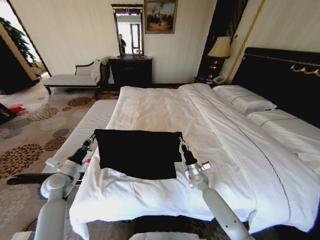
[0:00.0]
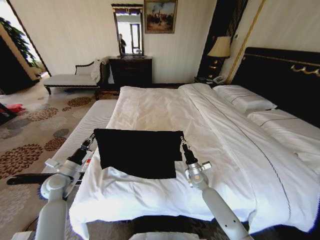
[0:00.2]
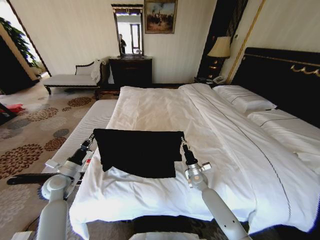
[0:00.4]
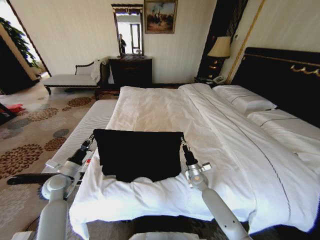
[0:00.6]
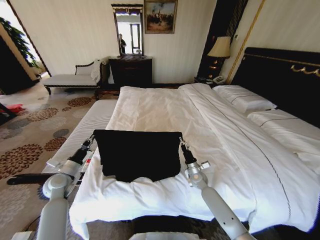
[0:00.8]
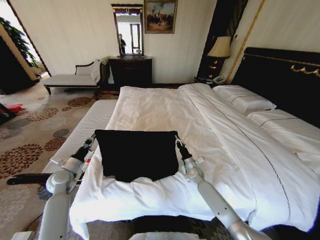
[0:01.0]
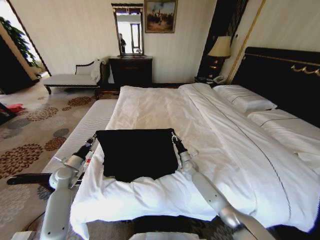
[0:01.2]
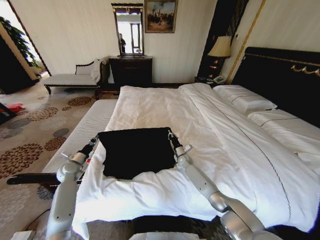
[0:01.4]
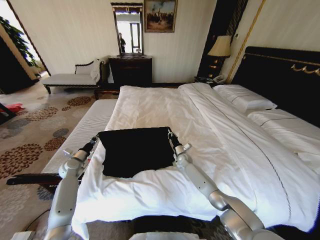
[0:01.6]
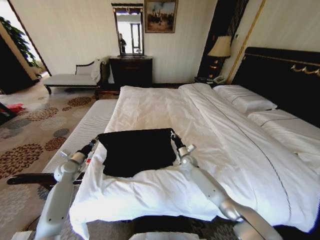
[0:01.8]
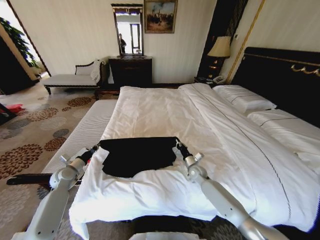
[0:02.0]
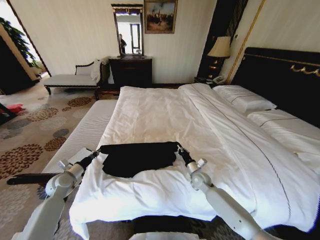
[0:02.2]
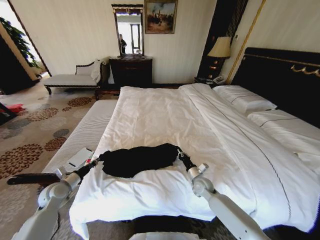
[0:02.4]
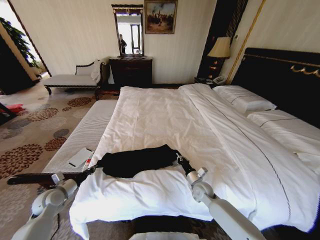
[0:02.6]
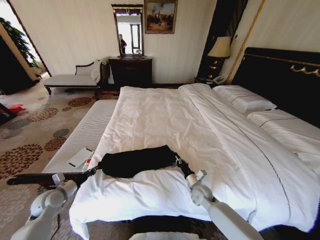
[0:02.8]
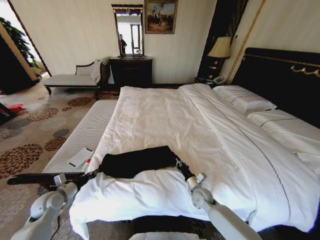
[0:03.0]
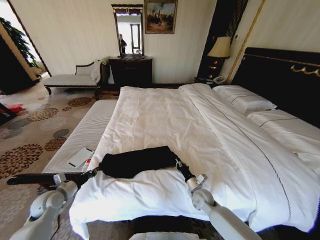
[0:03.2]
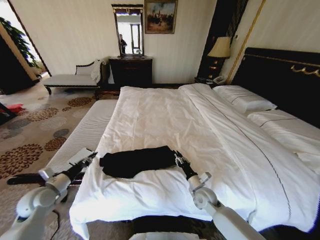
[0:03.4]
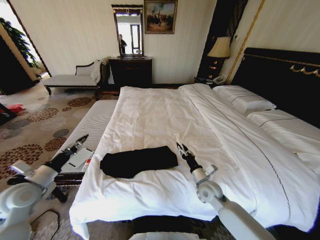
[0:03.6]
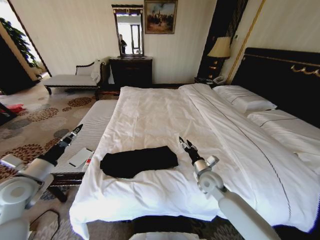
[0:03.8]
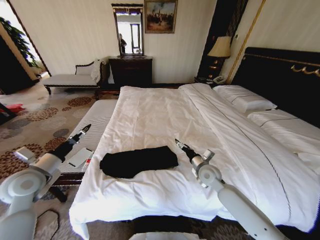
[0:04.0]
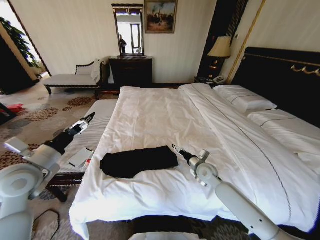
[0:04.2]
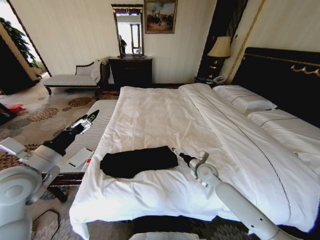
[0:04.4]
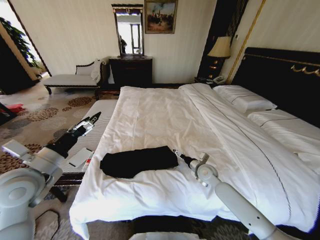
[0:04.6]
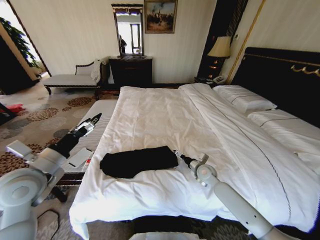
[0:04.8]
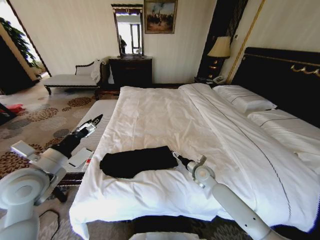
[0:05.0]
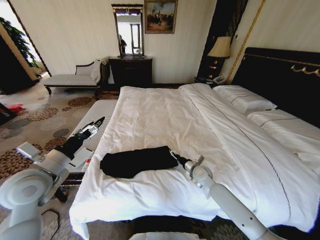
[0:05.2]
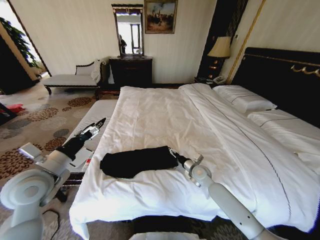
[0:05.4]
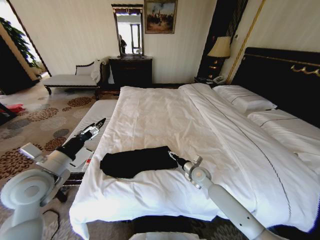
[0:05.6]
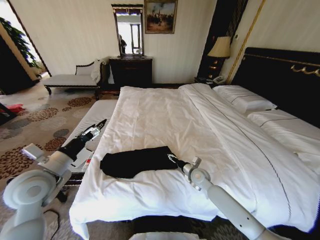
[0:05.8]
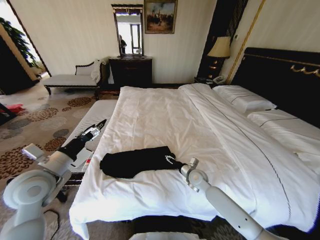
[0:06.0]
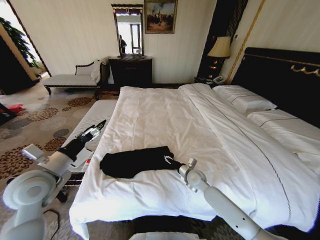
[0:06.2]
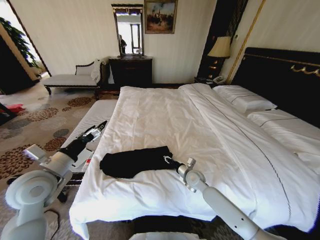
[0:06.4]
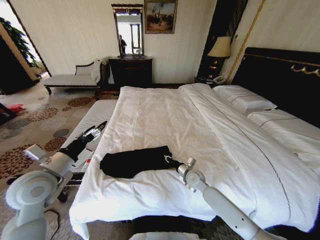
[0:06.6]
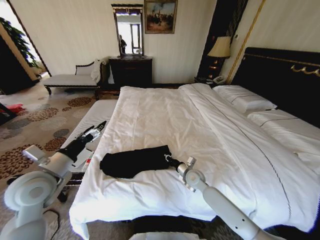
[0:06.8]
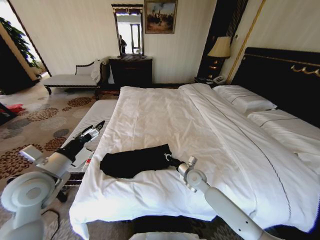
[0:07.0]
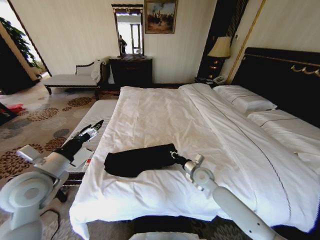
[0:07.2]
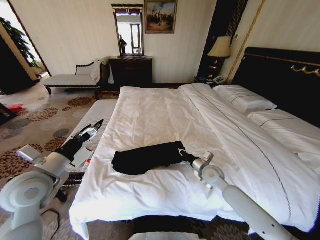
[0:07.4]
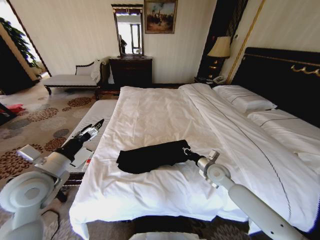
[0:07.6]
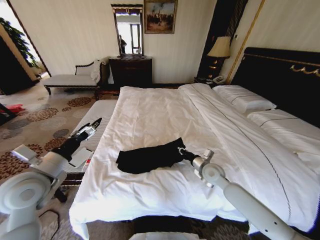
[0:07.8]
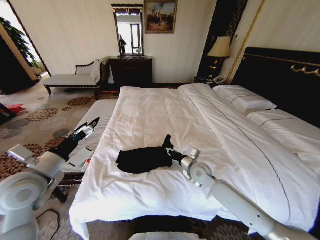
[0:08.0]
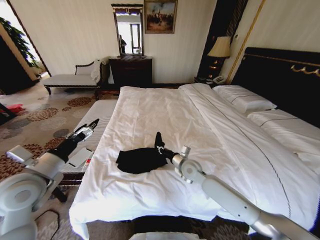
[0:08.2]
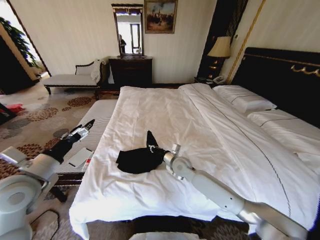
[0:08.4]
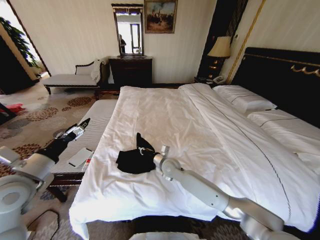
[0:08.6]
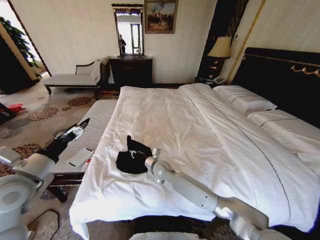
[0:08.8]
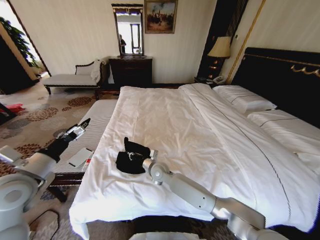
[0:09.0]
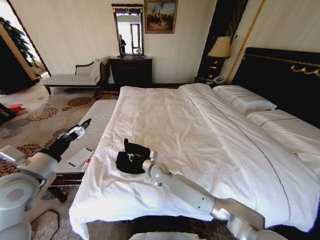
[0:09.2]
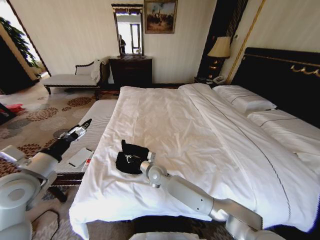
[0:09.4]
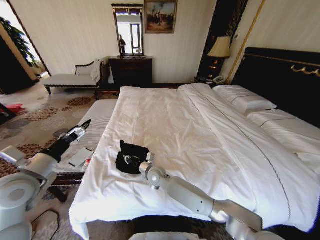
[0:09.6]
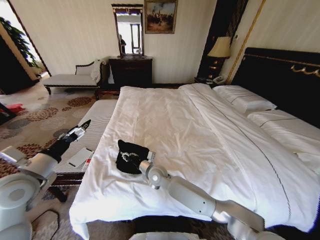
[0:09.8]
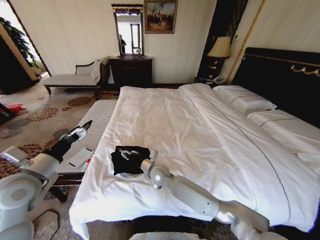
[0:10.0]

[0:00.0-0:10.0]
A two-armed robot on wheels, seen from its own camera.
Task of the whole recording: Fold the clothes on the bed.
0:00.0 to 0:01.4: The left gripper moves forward, about 10 cm, while the right gripper heads forward, covering approximately 15 cm.
0:01.4 to 0:02.8: Both grippers move backward, approximately 15 cm.
0:02.8 to 0:04.2: The left gripper is displaced upward by about 20 cm, and opens up, while the right gripper is displaced upward and forward by approximately 15 cm, and opens its fingers.
0:04.2 to 0:05.8: The right gripper goes some 5 cm downward.
0:05.8 to 0:07.2: The right gripper closes its fingers.
0:07.2 to 0:08.6: The right gripper moves to the left, about 15 cm.
0:08.6 to 0:10.0: The right gripper is displaced to the left by approximately 5 cm, and opens up.

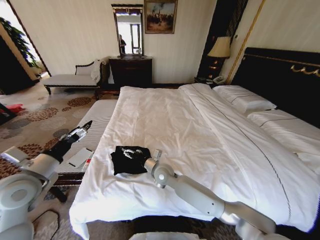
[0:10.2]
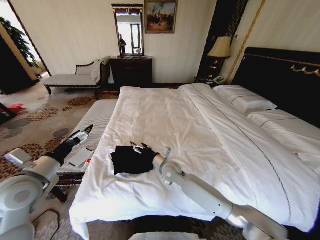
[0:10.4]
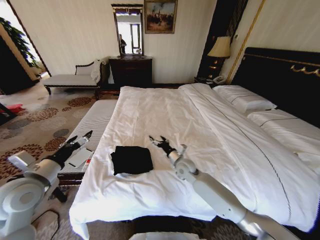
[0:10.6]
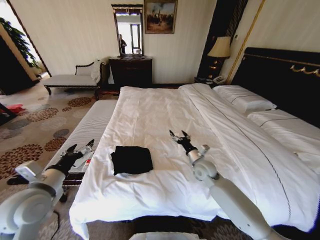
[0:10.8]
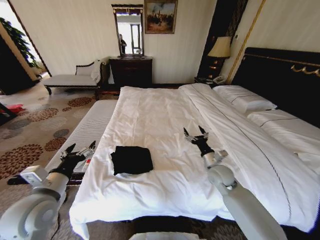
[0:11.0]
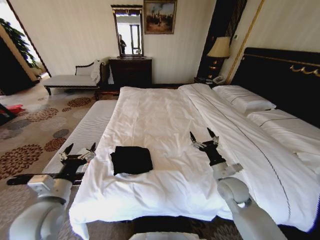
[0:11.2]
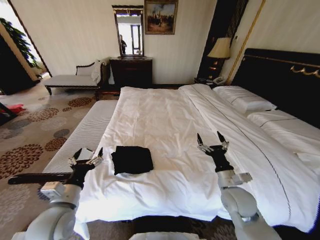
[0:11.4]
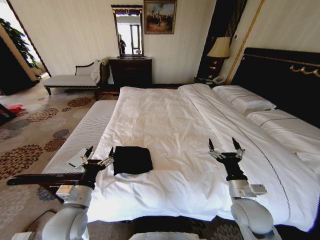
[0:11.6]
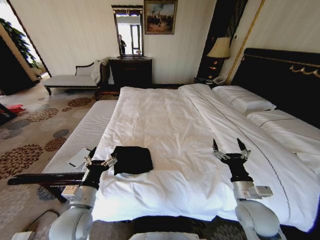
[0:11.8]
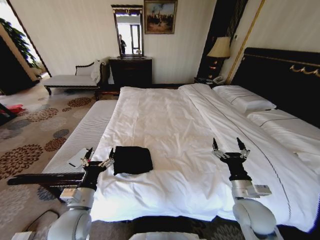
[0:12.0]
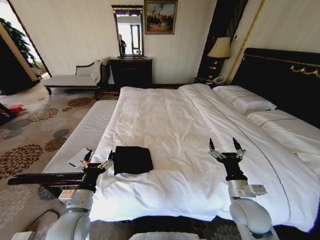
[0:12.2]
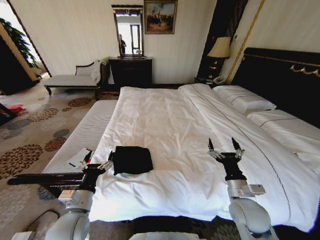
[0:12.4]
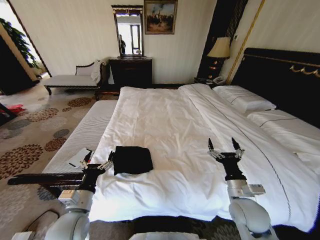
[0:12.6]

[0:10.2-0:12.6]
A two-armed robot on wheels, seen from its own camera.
Task of the whole recording: Fold the clothes on the bed.
0:10.2 to 0:11.4: The right gripper goes roughly 30 cm to the right and backward, while the left gripper goes about 15 cm downward, to the right and backward.
0:11.4 to 0:12.6: The left gripper moves roughly 5 cm.

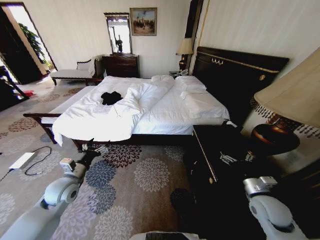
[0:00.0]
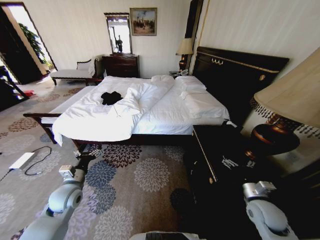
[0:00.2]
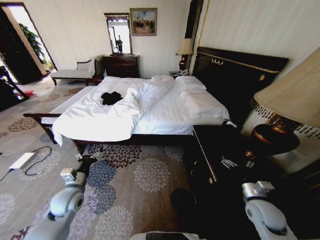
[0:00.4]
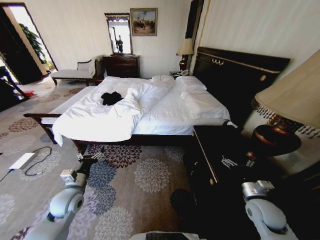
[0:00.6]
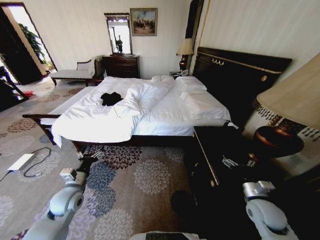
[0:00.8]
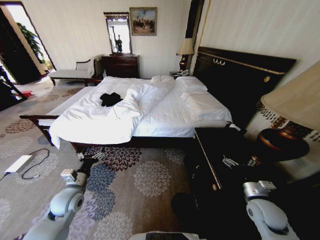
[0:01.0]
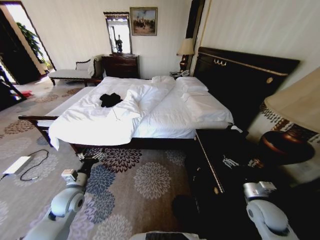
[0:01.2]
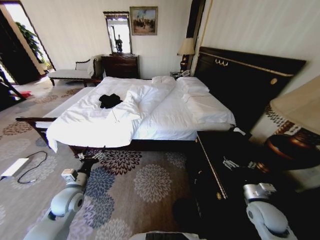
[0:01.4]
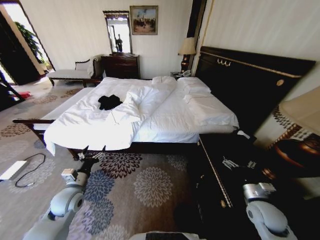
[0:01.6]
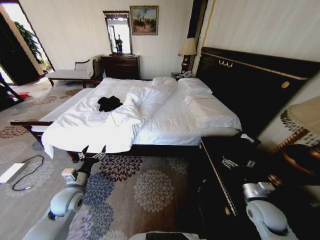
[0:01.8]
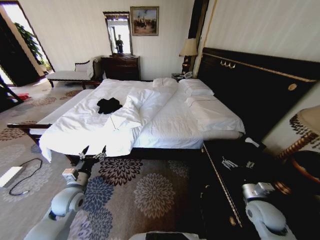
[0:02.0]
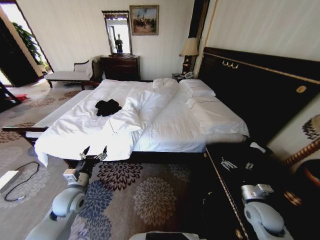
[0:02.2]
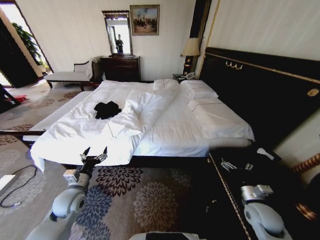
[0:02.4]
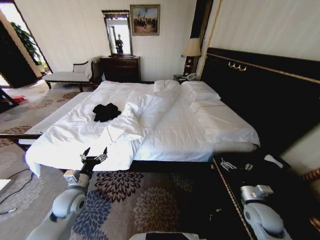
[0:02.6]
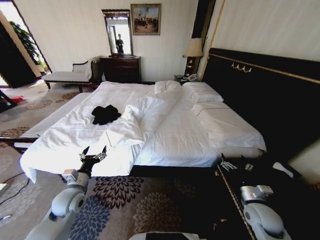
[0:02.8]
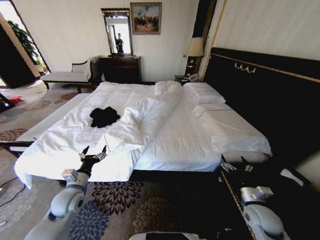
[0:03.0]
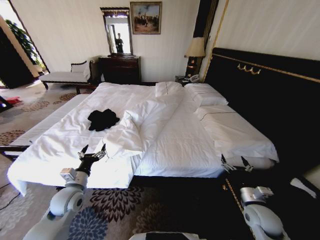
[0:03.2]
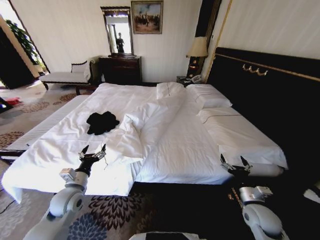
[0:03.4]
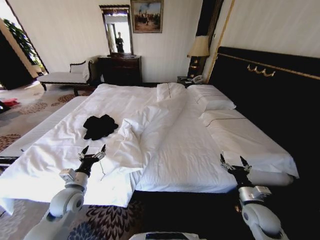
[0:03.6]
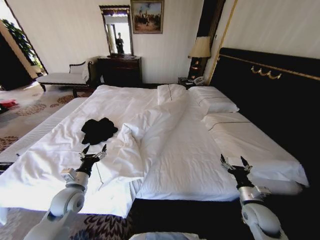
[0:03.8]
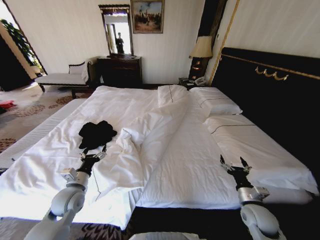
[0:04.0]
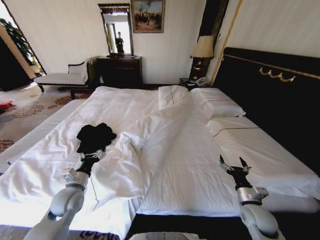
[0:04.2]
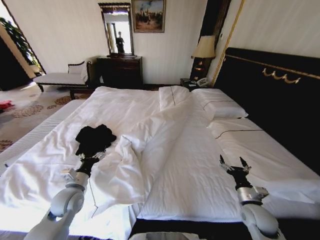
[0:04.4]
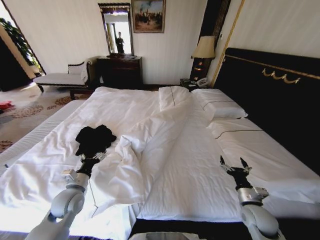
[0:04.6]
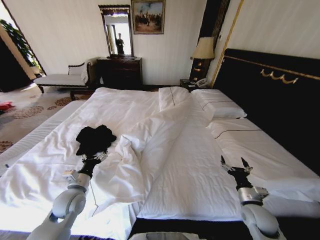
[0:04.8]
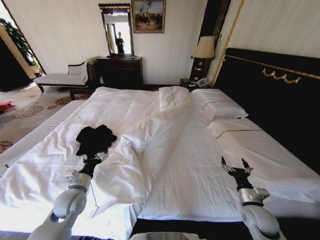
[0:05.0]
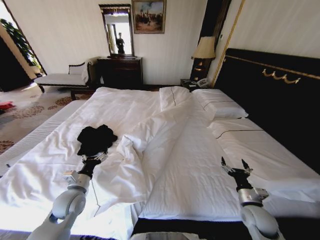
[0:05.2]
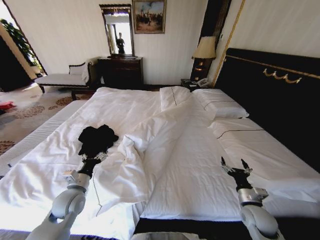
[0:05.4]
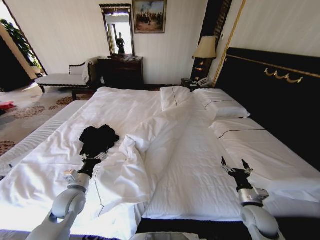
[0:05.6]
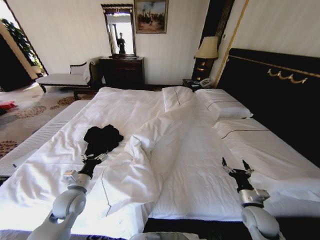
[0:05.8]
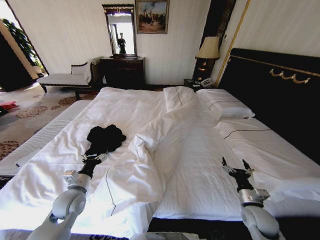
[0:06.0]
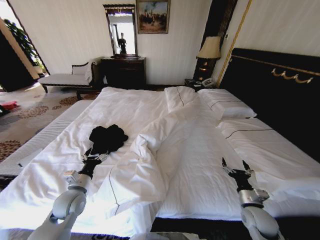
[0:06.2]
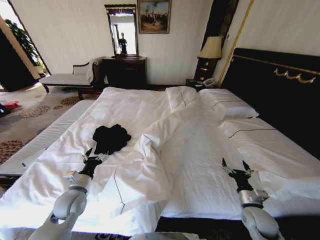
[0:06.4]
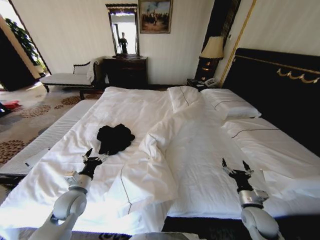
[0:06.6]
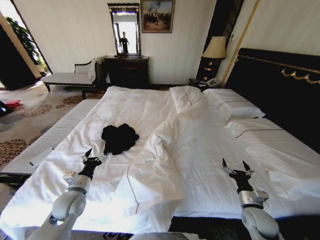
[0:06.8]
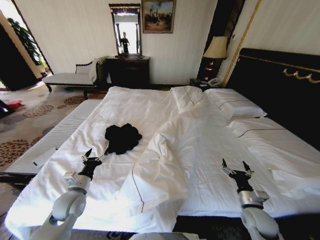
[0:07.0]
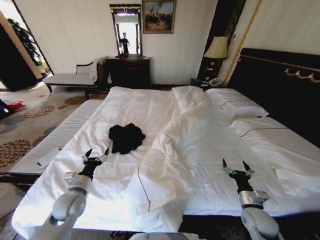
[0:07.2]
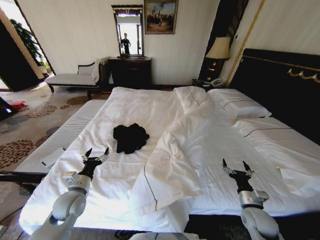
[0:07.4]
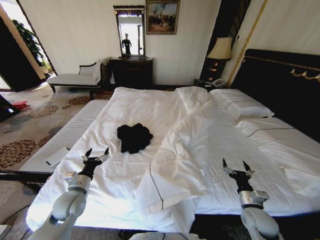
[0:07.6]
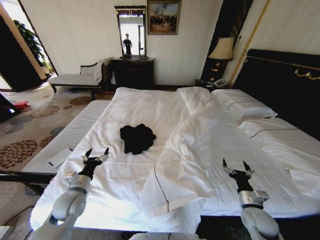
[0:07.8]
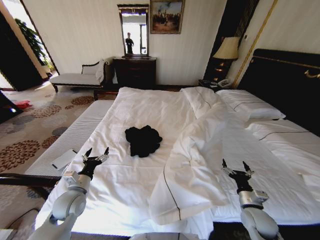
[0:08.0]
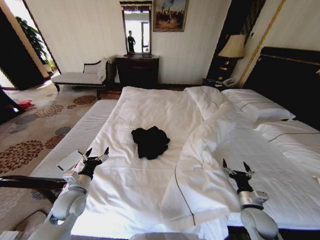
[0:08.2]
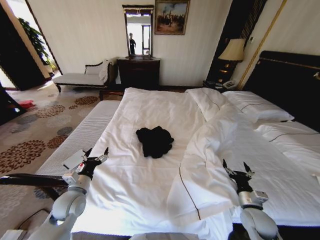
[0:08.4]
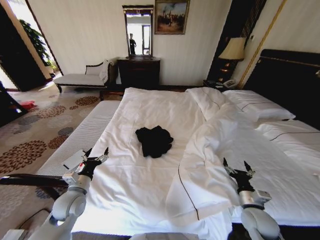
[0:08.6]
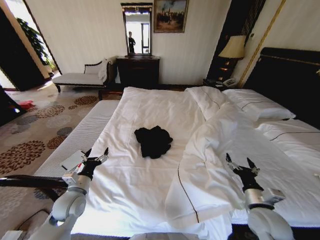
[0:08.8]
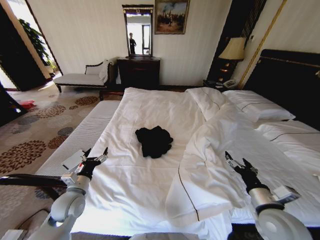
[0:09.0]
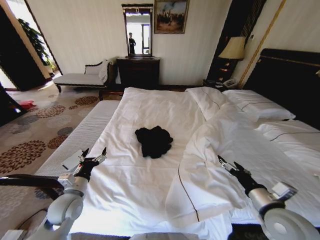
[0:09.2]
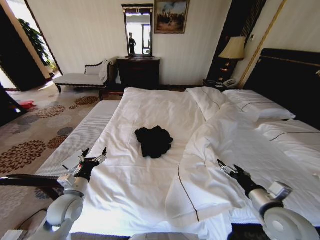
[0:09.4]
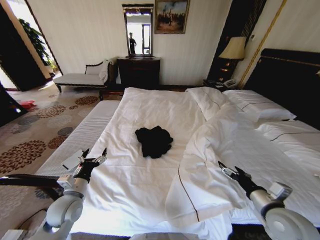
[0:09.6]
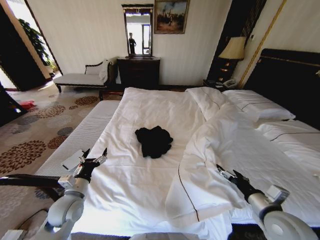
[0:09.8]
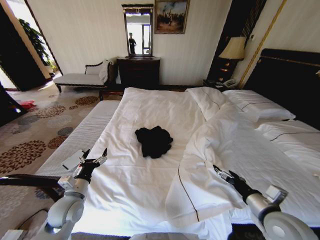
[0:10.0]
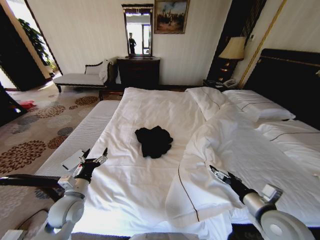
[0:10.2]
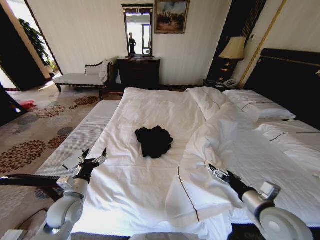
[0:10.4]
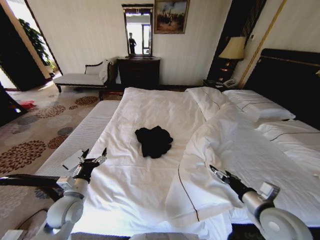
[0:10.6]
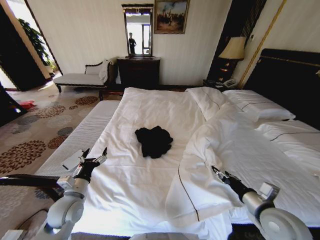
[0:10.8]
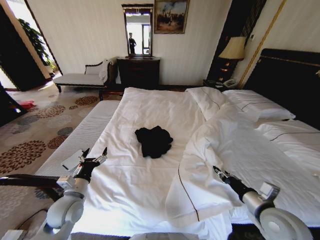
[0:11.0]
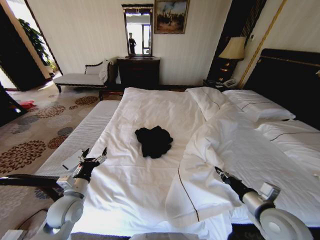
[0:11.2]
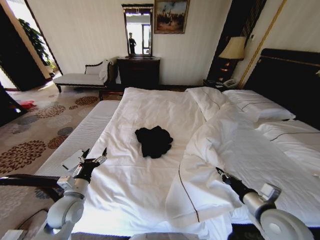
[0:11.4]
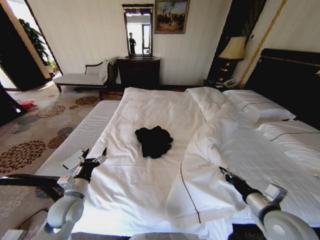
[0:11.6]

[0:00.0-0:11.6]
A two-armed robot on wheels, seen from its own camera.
Task of the whole recording: Fold the clothes on the bed.
0:07.2 to 0:08.8: The right gripper travels upward by about 5 cm.
0:08.8 to 0:10.2: The right gripper shifts some 5 cm upward.
0:10.2 to 0:11.6: The right gripper closes up.
